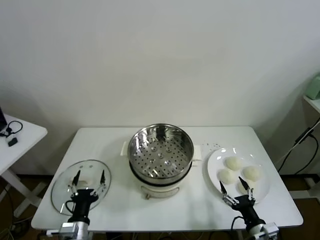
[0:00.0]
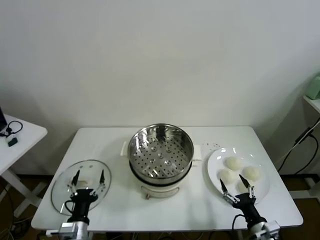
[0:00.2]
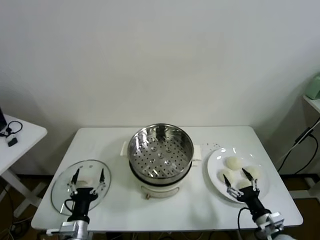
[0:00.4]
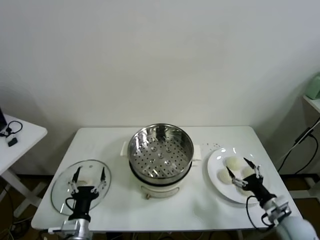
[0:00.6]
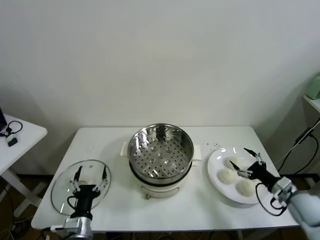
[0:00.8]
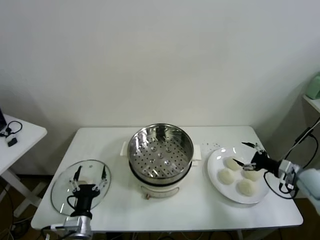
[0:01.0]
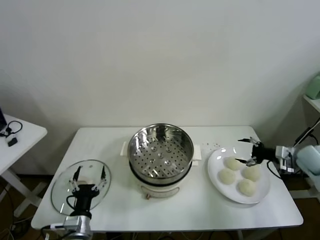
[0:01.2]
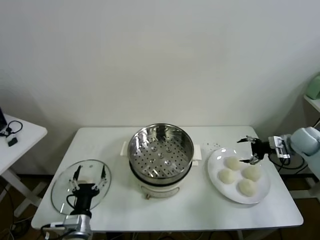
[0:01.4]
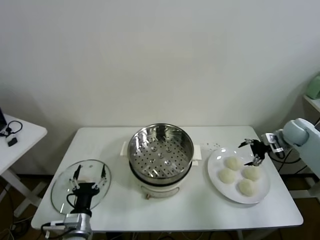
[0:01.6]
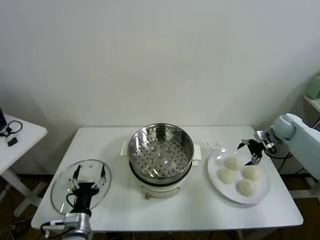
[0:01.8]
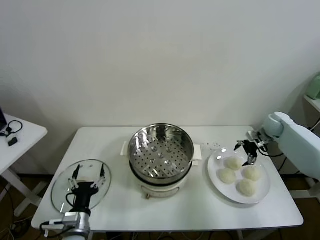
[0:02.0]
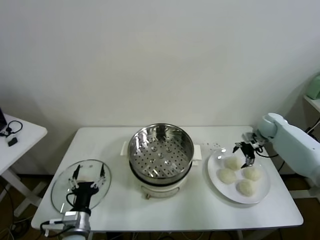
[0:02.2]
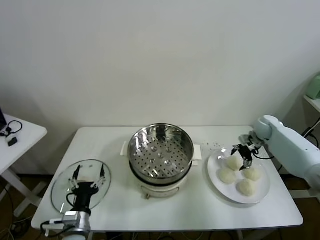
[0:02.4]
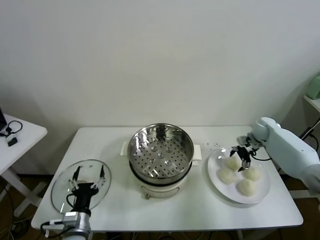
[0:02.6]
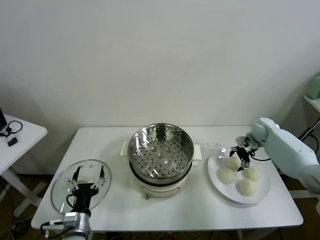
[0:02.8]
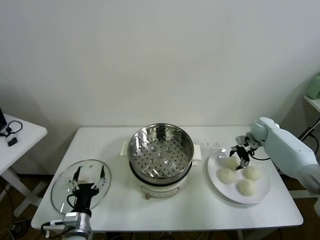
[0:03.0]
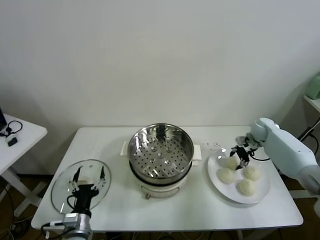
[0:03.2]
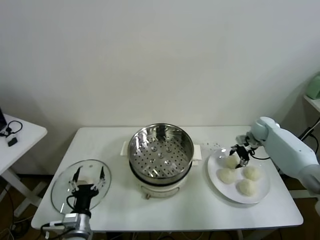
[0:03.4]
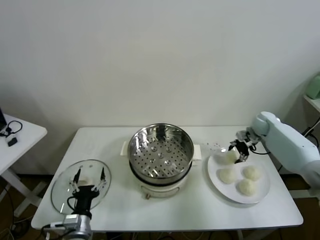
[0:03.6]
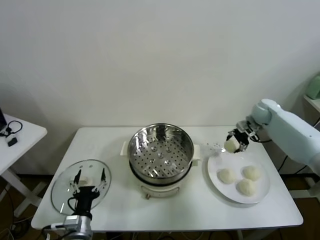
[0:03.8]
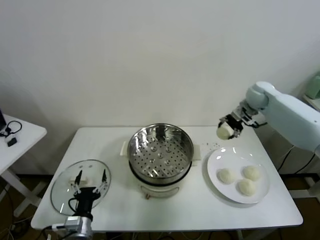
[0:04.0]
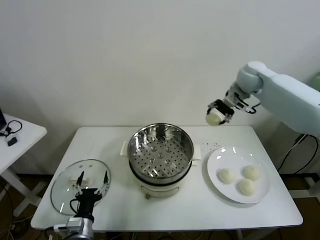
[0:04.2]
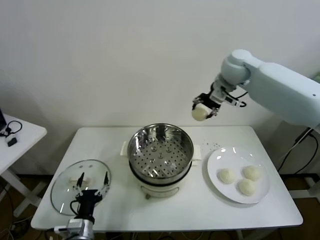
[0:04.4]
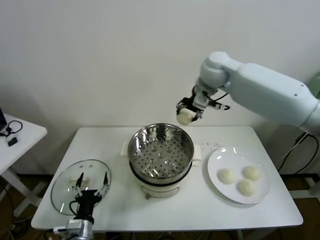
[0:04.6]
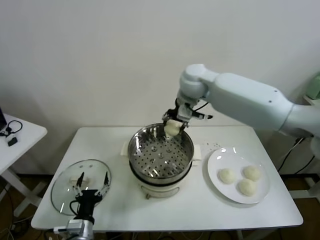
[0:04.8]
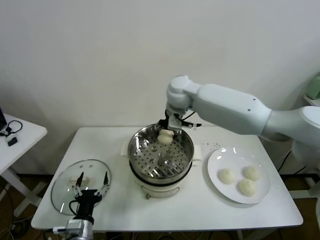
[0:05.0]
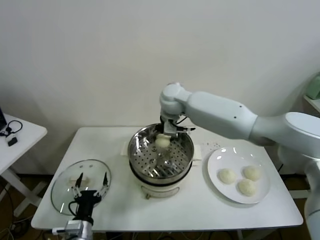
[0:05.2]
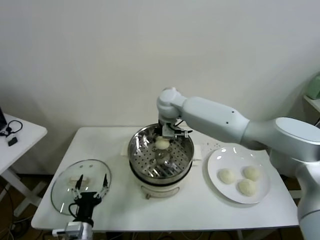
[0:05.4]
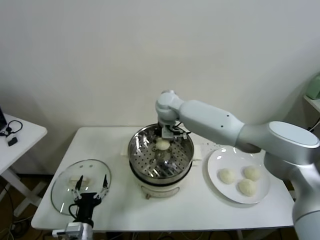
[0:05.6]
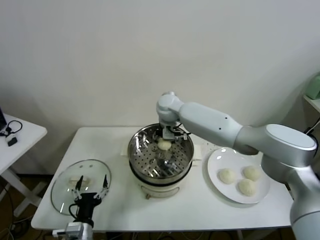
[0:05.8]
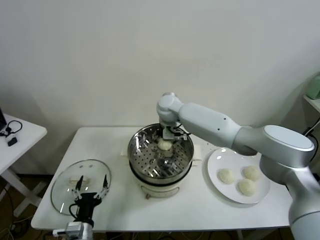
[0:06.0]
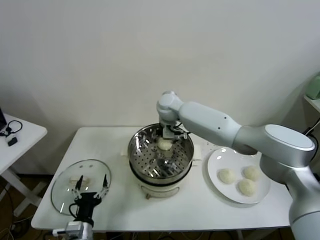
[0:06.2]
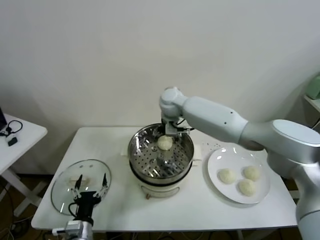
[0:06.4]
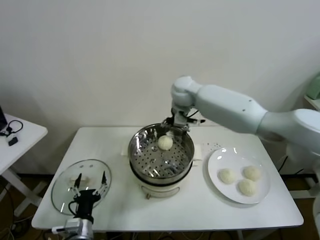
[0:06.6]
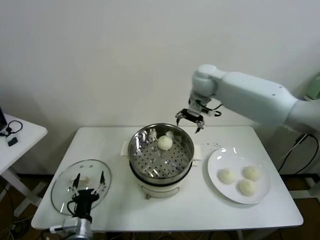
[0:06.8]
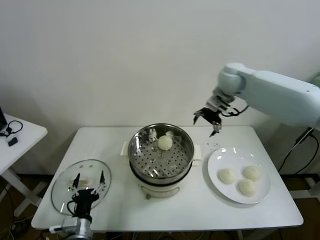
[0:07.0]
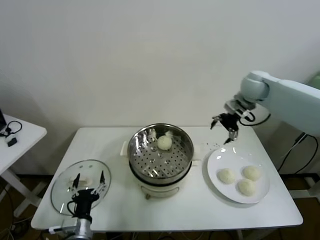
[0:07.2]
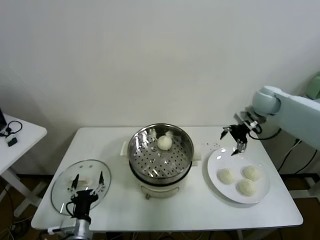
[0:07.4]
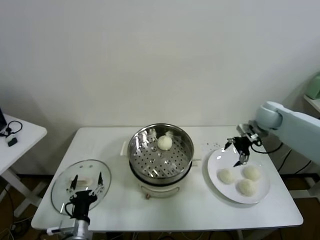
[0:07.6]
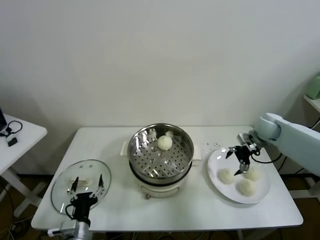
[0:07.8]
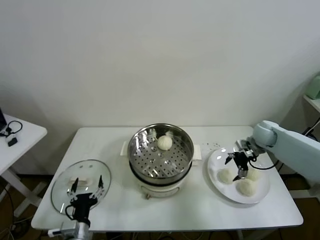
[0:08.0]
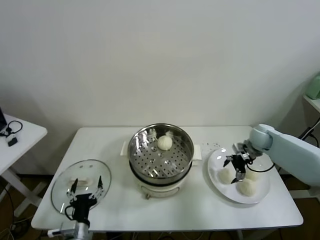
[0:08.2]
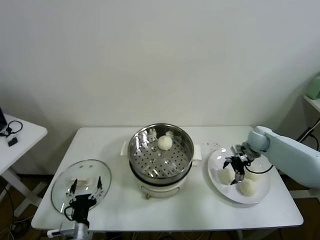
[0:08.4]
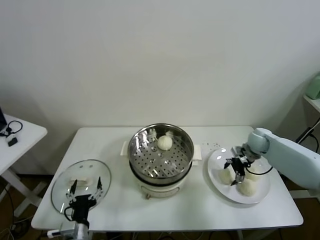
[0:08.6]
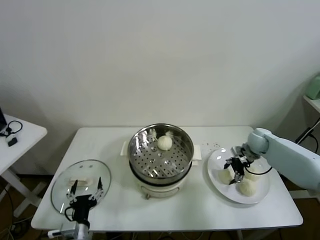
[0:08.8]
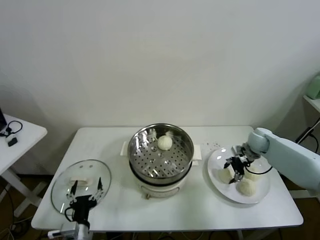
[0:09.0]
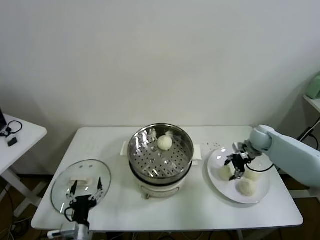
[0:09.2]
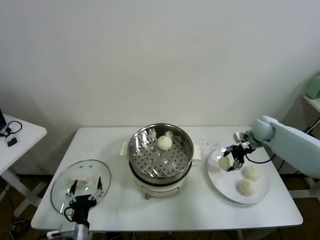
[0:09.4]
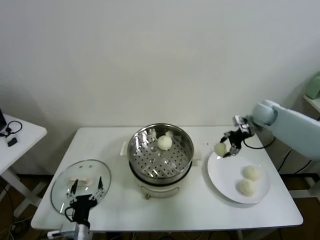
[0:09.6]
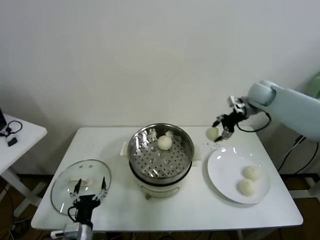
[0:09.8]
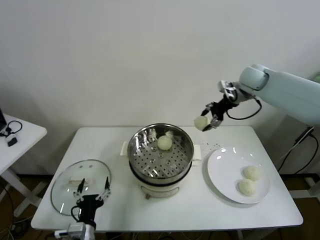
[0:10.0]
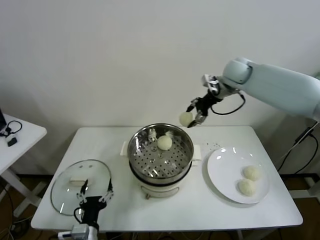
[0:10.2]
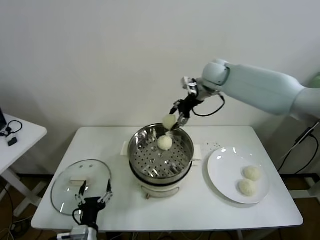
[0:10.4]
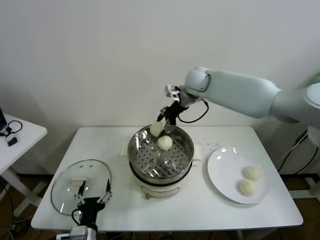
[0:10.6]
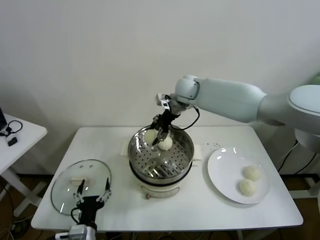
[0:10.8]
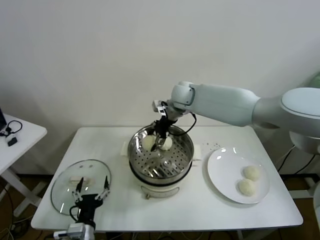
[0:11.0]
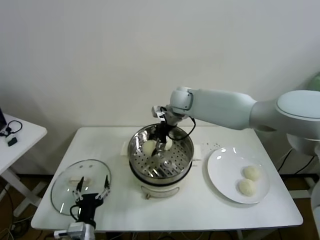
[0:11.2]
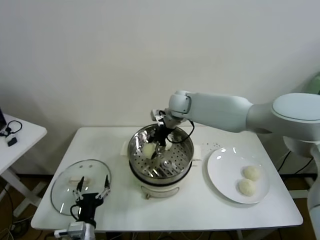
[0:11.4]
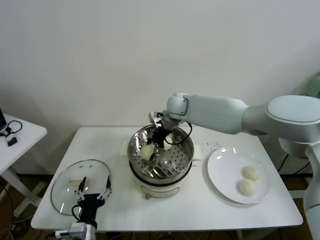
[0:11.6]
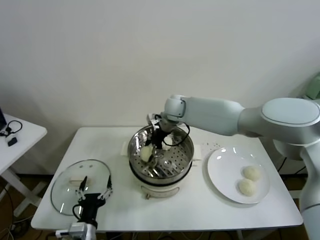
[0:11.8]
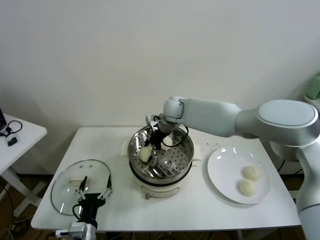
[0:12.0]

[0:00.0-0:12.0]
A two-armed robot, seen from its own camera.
Task of the whole recording: take steamed baozi put them in steamer.
Step, 0:00.0 to 0:03.0: Grasp the baozi in the plate with right gripper.
Step, 0:03.4 to 0:06.4: Place the baozi on the steamer with right gripper.
Step, 0:06.6 to 0:08.8: Grasp the baozi in the plate with right gripper.
0:01.6 to 0:03.0: The right gripper shifts about 10 cm downward and to the left, and closes.
0:03.0 to 0:04.4: The right gripper moves upward and to the left, roughly 40 cm.
0:04.4 to 0:06.0: The right gripper travels downward and to the left by about 20 cm, and opens.
0:06.0 to 0:07.6: The right gripper travels to the right by some 35 cm.
0:07.6 to 0:09.0: The right gripper heads downward, covering about 10 cm, and closes.
0:09.0 to 0:10.4: The right gripper goes about 35 cm to the left and upward.
0:10.4 to 0:12.0: The right gripper shifts some 15 cm downward and to the left, and opens its fingers.

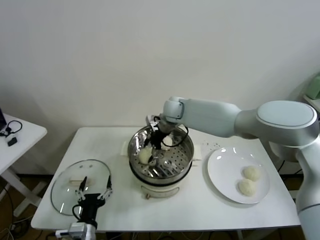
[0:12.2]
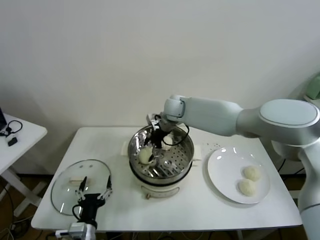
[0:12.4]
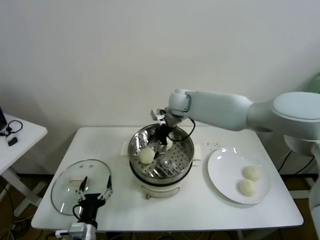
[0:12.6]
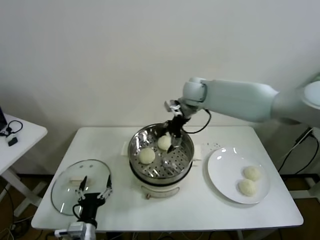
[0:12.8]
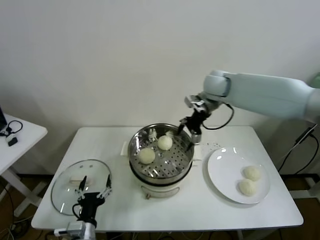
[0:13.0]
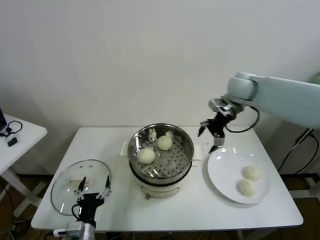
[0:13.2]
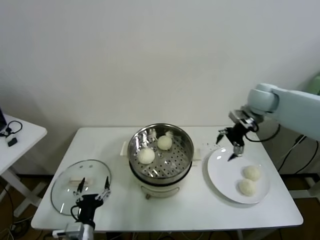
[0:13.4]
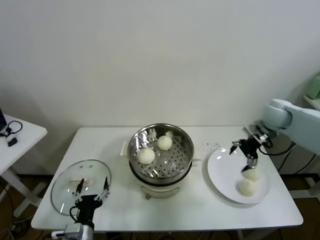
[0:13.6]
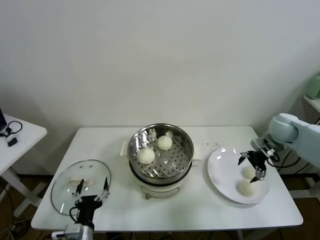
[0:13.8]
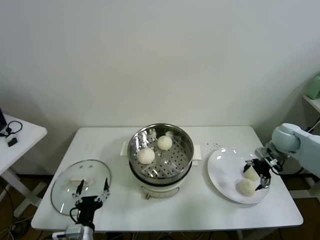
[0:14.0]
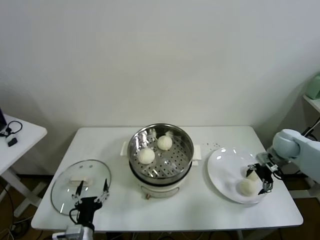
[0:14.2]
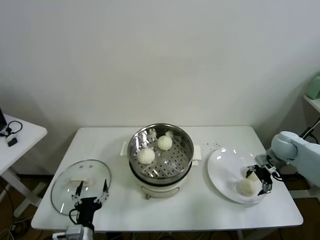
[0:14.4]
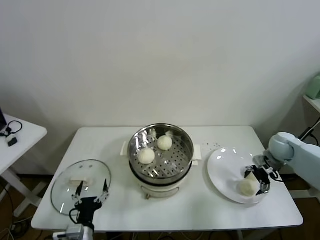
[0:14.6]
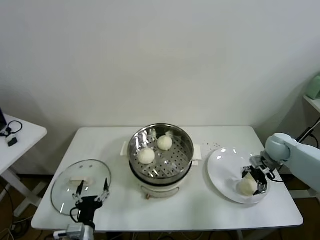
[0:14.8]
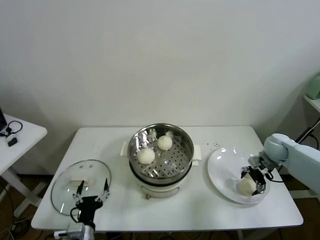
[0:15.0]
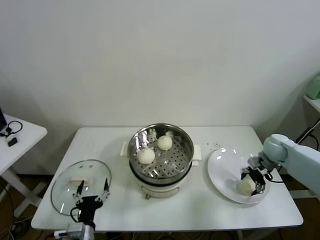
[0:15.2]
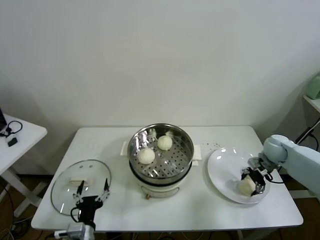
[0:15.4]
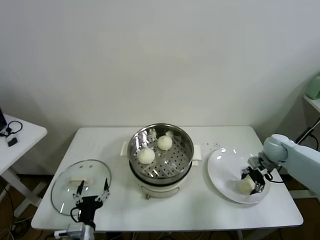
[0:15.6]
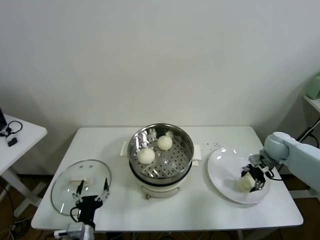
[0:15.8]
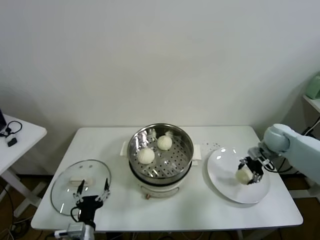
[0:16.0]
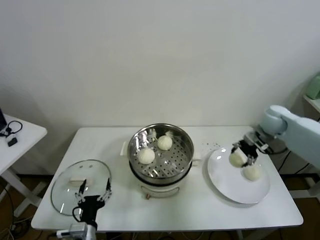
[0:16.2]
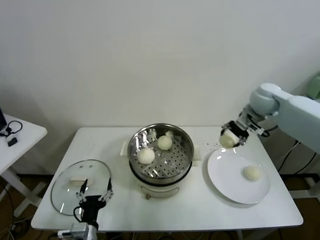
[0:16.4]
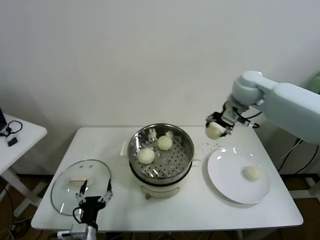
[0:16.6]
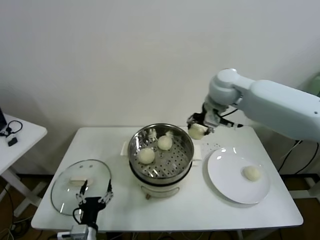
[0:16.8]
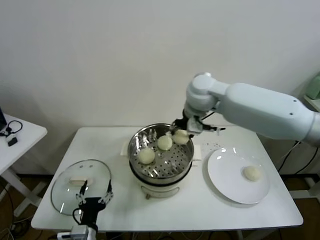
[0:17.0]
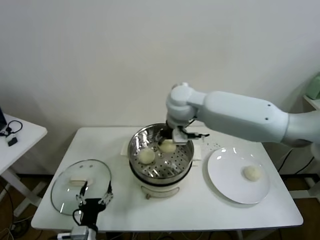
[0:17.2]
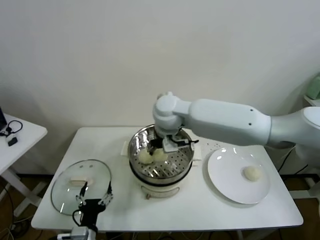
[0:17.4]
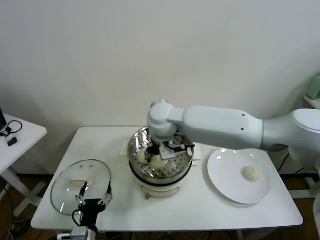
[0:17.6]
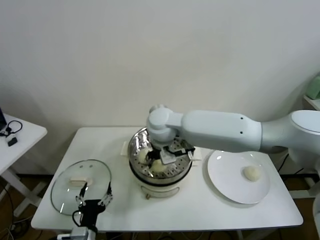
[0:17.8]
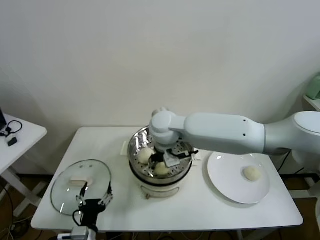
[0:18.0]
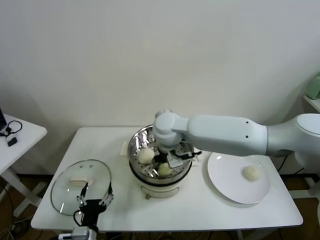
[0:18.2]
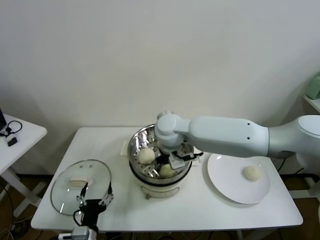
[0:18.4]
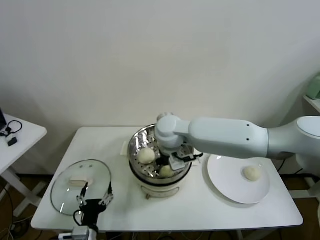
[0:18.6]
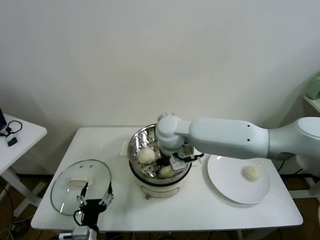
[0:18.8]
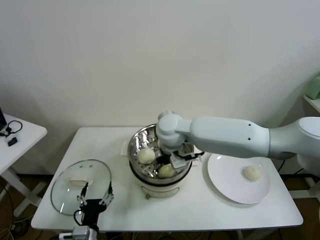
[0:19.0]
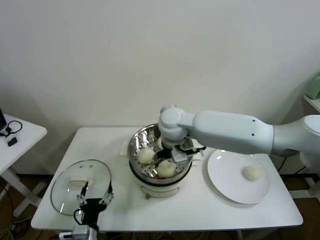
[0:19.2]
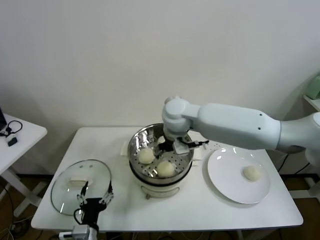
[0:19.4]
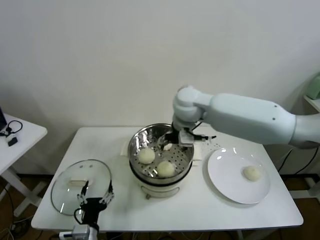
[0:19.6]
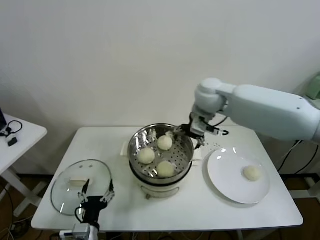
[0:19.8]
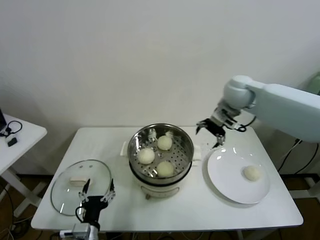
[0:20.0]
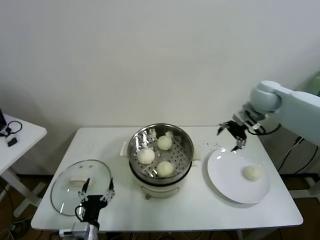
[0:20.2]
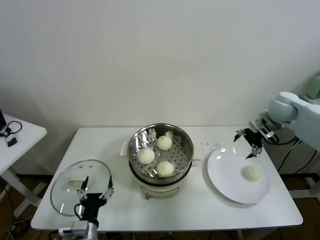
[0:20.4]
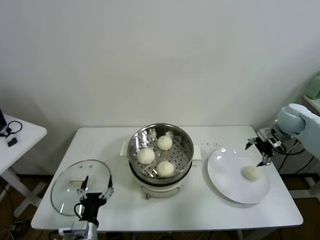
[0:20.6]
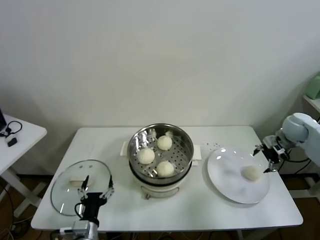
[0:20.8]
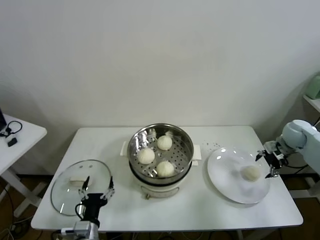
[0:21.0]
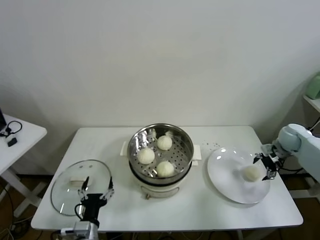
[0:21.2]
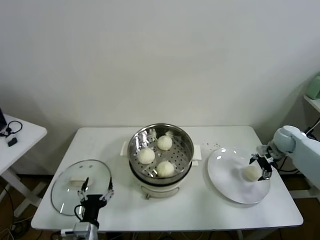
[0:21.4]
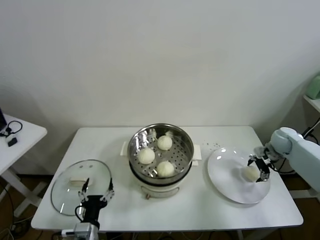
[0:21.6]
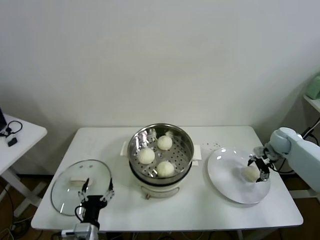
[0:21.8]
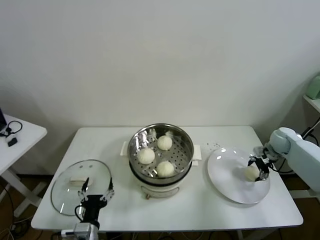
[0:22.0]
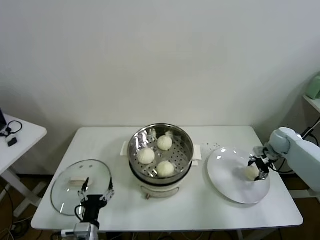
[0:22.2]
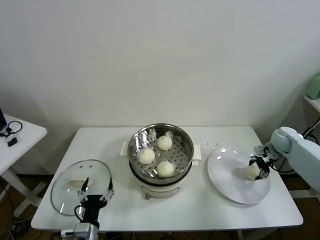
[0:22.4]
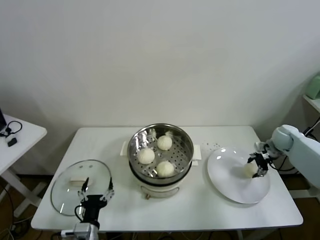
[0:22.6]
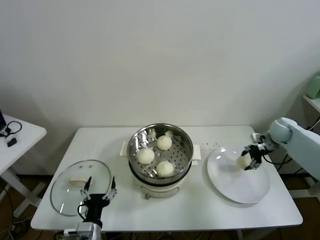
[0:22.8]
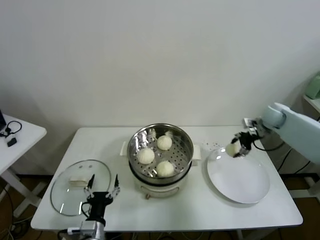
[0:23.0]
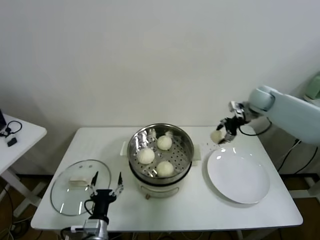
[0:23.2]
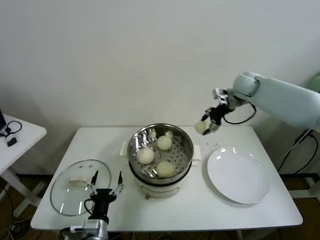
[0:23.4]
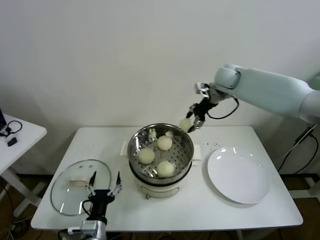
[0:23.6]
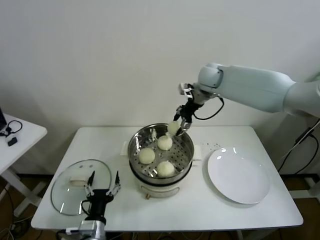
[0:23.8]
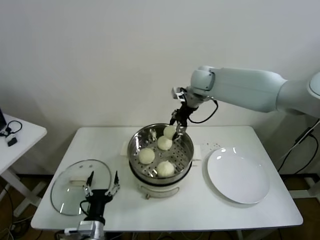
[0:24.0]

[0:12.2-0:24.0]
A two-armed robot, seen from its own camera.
Task of the whole recording: take steamed baozi put them in steamer.
Step, 0:12.6 to 0:15.4: Grasp the baozi in the plate with right gripper.
Step, 0:15.6 to 0:19.2: Place the baozi on the steamer with right gripper.
Step, 0:19.4 to 0:22.0: Grasp the baozi in the plate with right gripper.
0:12.2 to 0:13.6: The right gripper travels to the right by approximately 35 cm.
0:13.6 to 0:15.2: The right gripper shifts about 10 cm downward, and closes.
0:15.2 to 0:16.6: The right gripper heads upward and to the left, covering some 30 cm, and closes.
0:16.6 to 0:18.2: The right gripper shifts some 25 cm to the left and downward.
0:18.2 to 0:19.6: The right gripper moves to the right and upward, about 10 cm, and opens up.
0:19.6 to 0:21.0: The right gripper heads to the right, covering some 40 cm.
0:21.0 to 0:22.6: The right gripper closes.
0:22.6 to 0:24.0: The right gripper goes approximately 40 cm to the left and upward.
